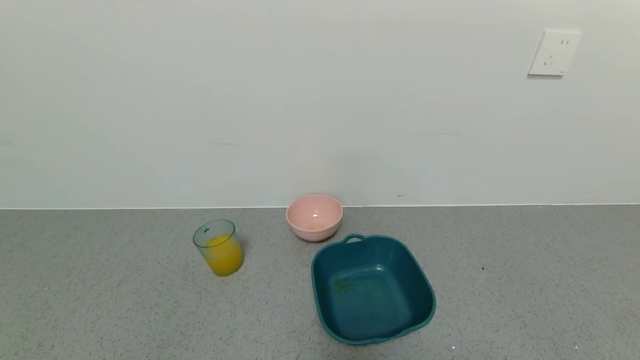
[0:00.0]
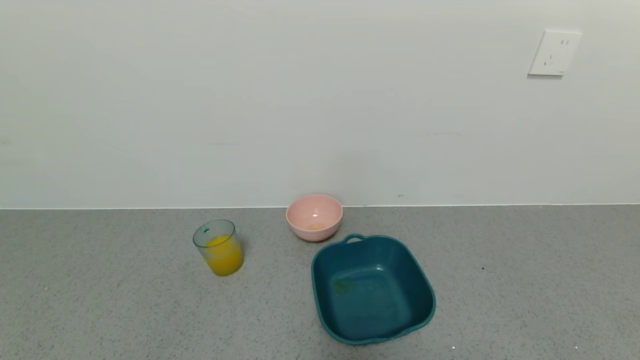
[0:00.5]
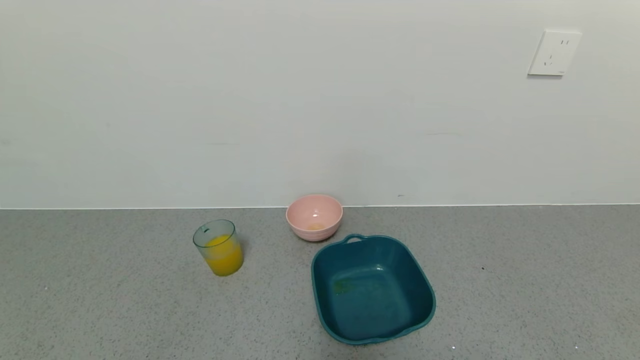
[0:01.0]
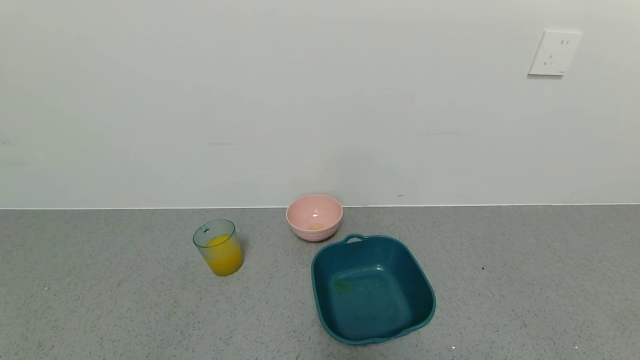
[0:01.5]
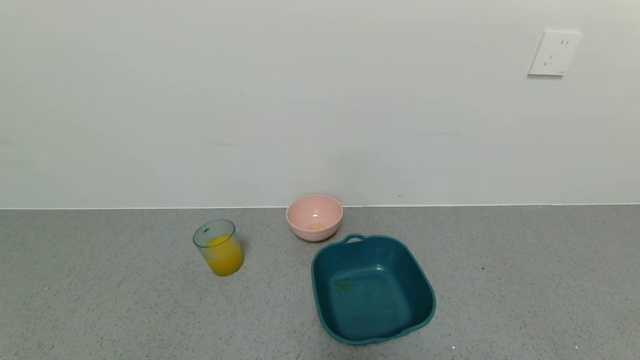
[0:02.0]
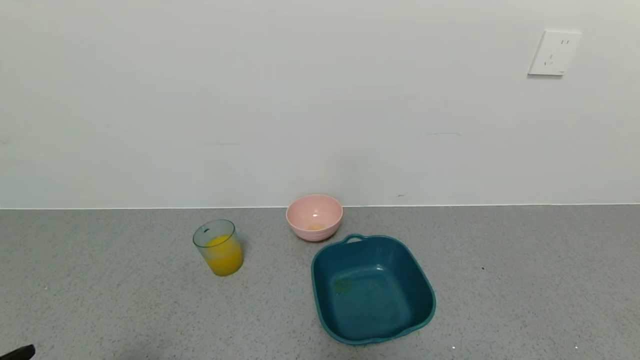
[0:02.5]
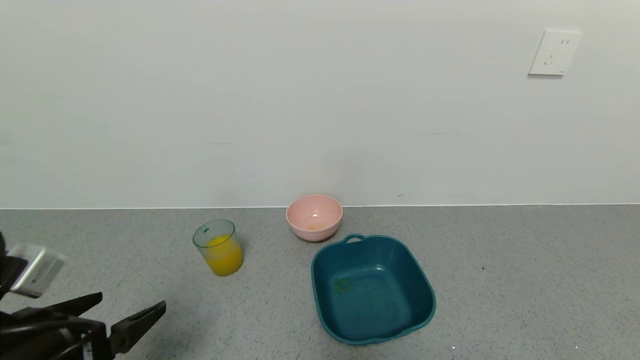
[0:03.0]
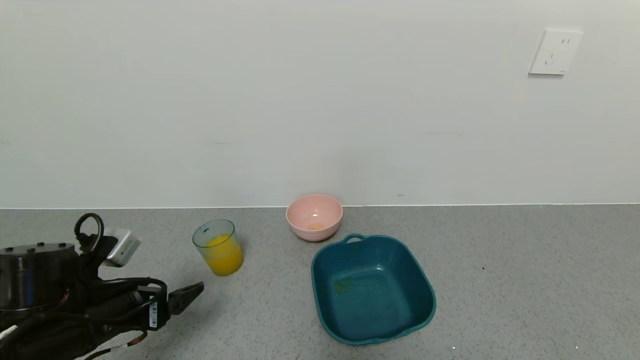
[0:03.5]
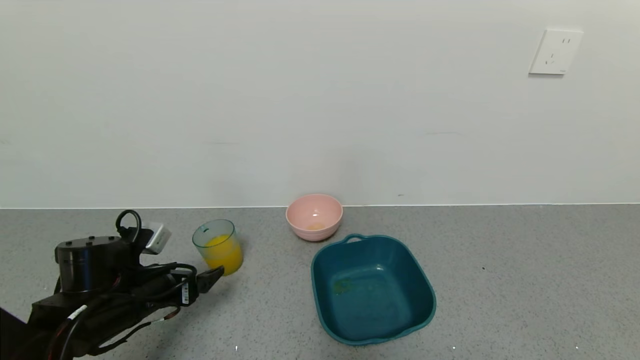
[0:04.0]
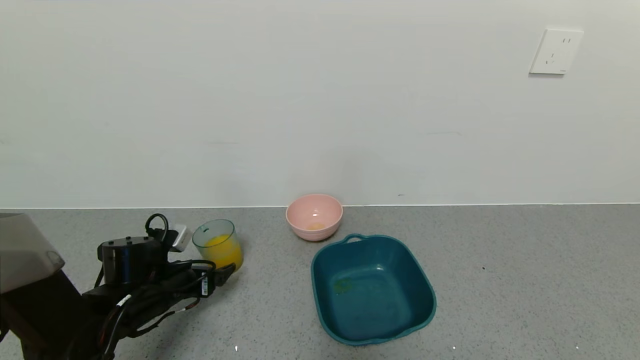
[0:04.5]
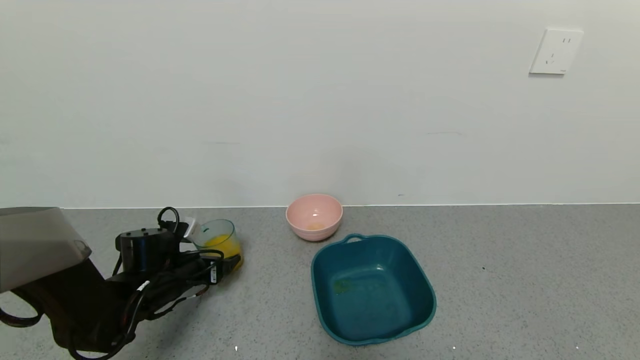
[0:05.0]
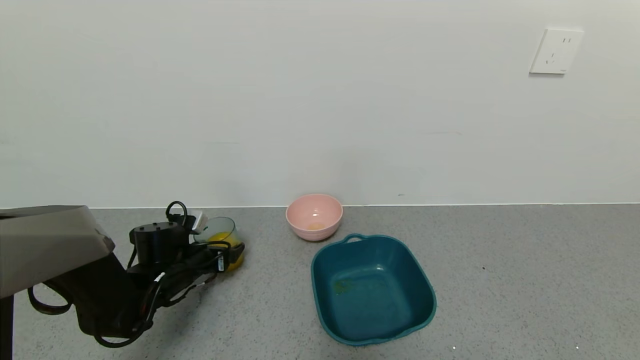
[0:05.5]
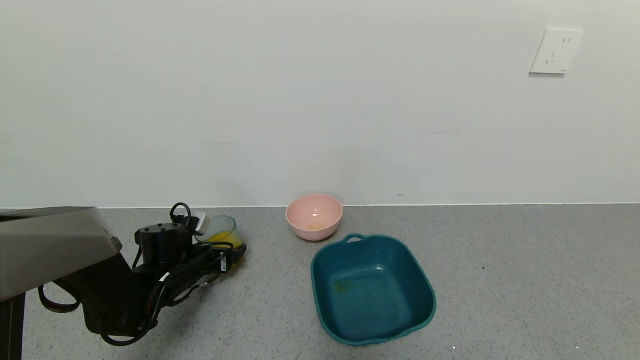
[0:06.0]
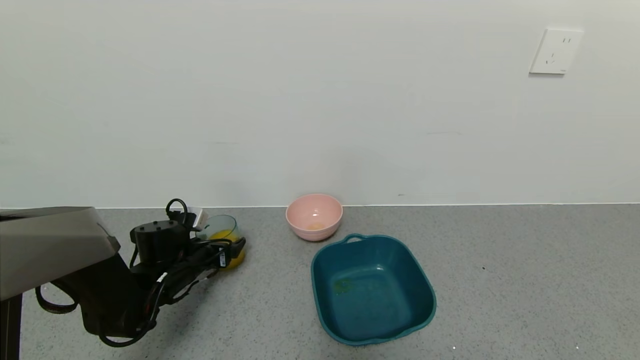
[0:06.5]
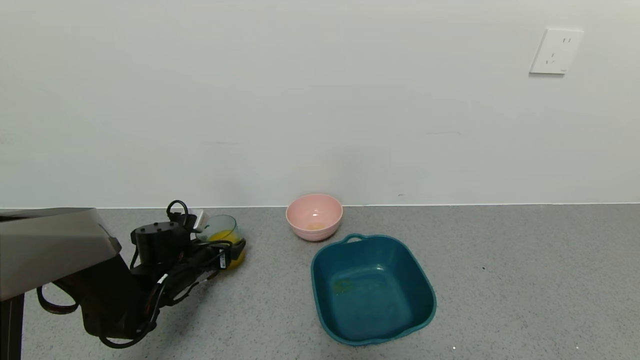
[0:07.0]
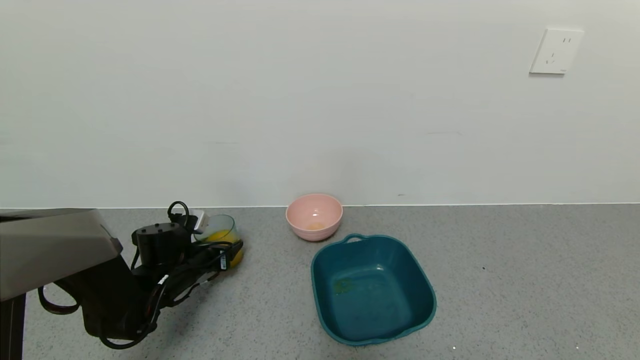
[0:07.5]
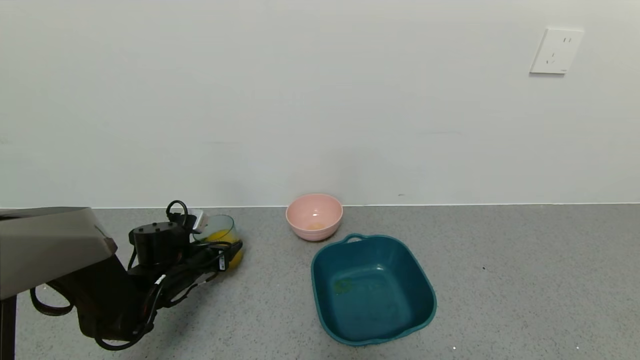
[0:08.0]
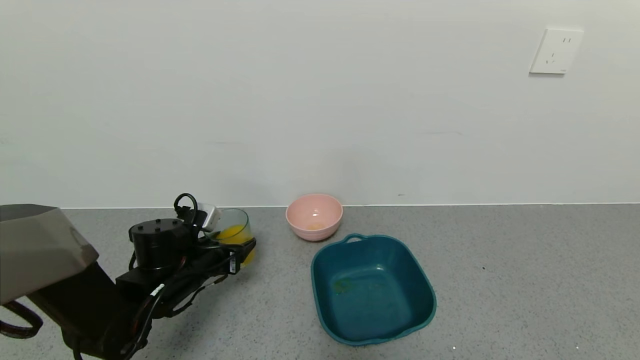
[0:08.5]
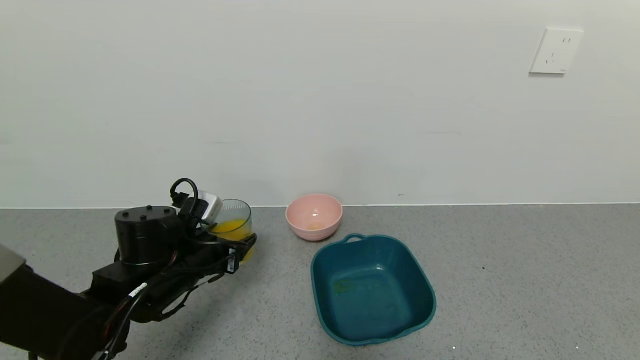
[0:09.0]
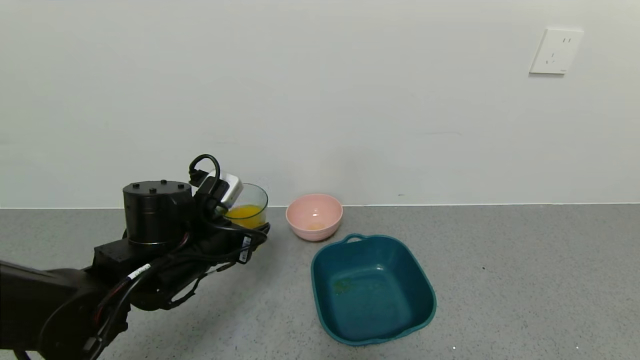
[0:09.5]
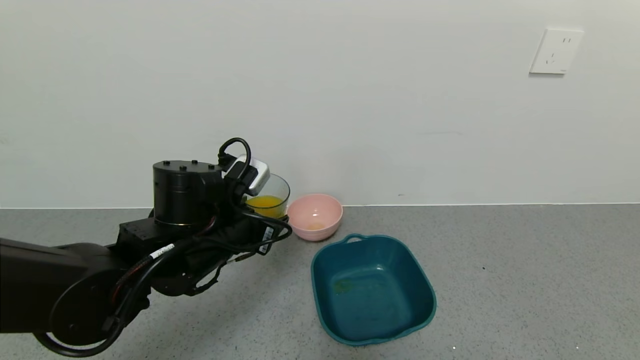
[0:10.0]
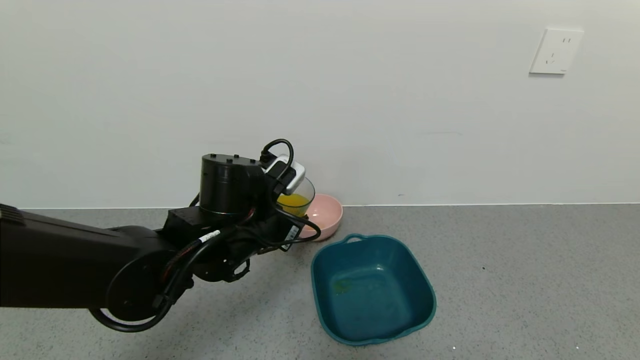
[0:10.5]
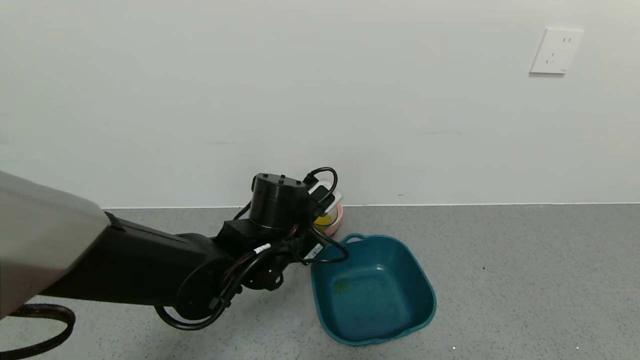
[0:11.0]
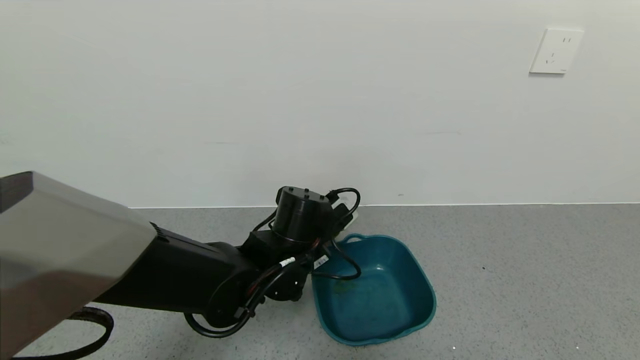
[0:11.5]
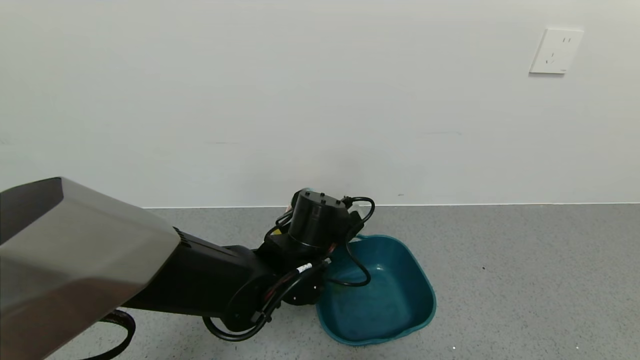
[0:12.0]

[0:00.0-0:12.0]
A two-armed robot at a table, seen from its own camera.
Task of the whole recording: use a gripper to pick up the cup and pour the liquid into a bowl or tray.
Step, 0:00.0 to 0:07.5: Pick up blue cup filled with orange juice with left gripper.
0:02.0 to 0:04.0: The left gripper goes approximately 30 cm forward.
0:04.0 to 0:06.0: The left gripper shifts roughly 10 cm forward and downward.
0:06.0 to 0:08.0: The left gripper closes.
0:08.0 to 0:10.0: The left gripper heads upward, to the right and backward, covering roughly 20 cm.
0:10.0 to 0:12.0: The left gripper goes roughly 10 cm to the right and downward.

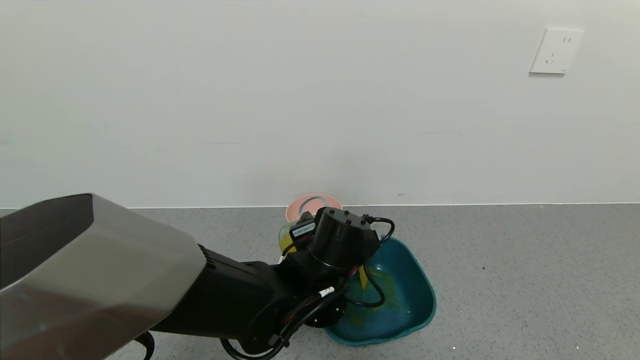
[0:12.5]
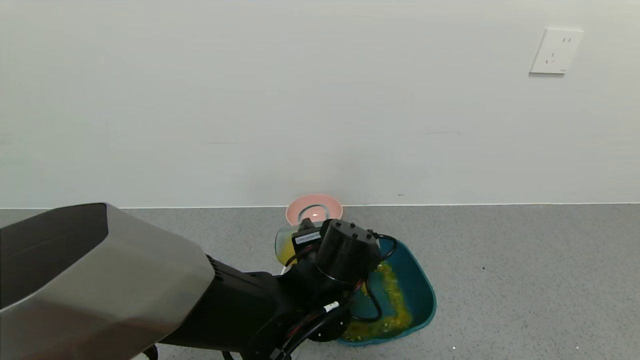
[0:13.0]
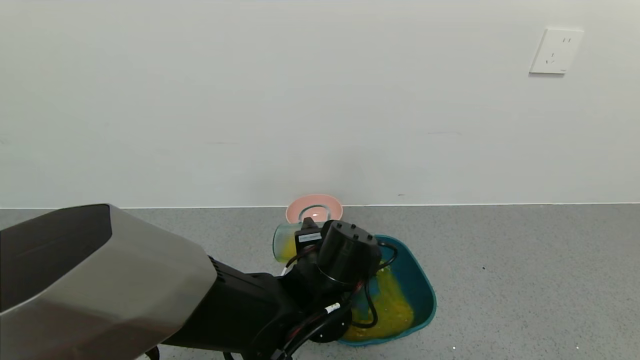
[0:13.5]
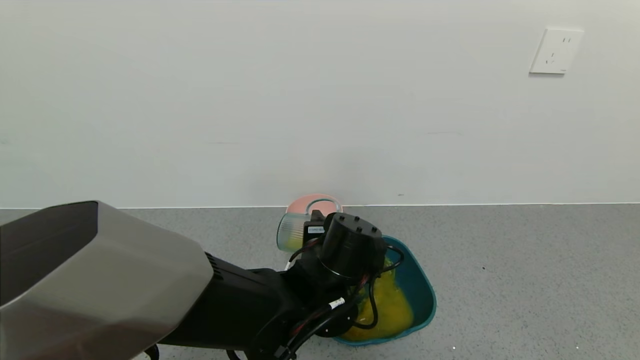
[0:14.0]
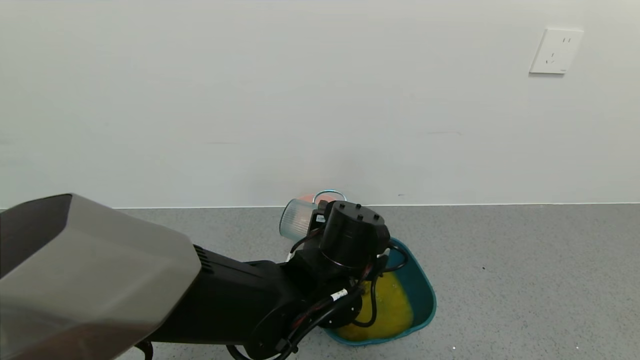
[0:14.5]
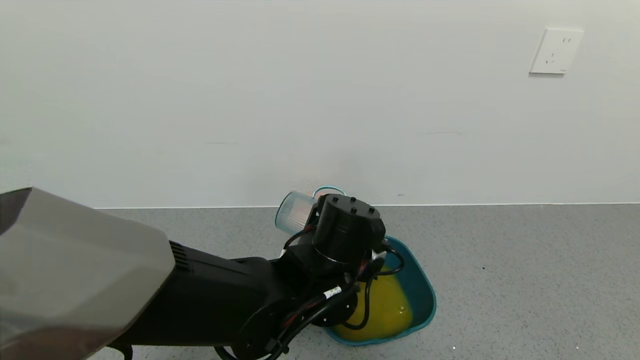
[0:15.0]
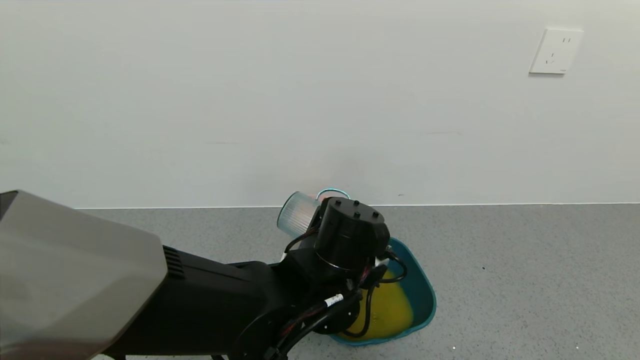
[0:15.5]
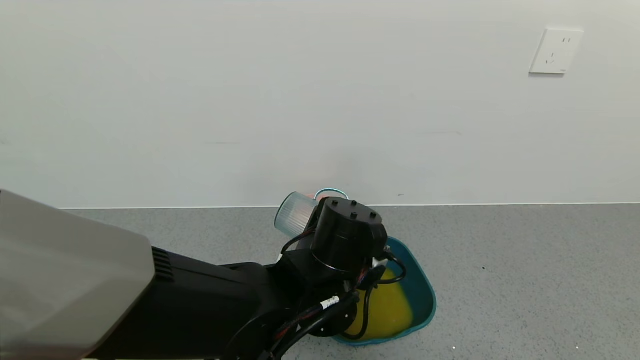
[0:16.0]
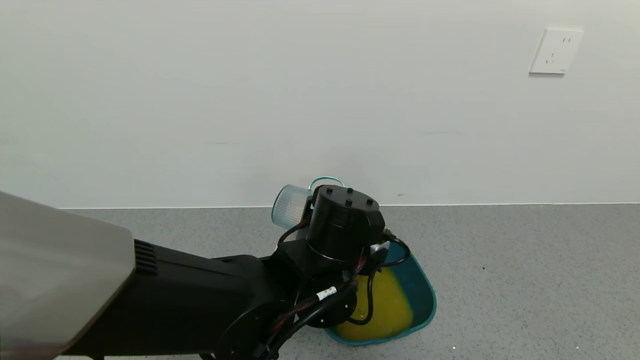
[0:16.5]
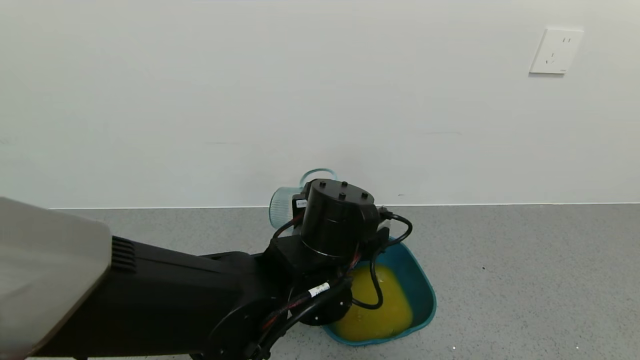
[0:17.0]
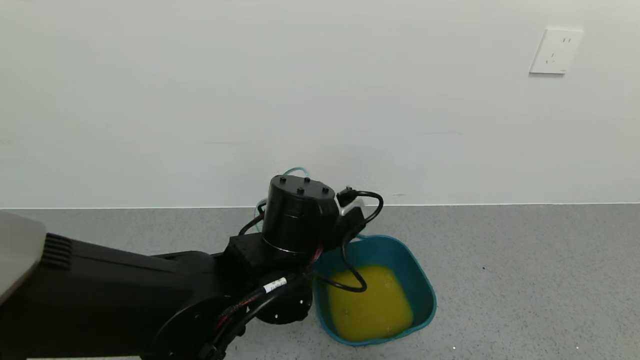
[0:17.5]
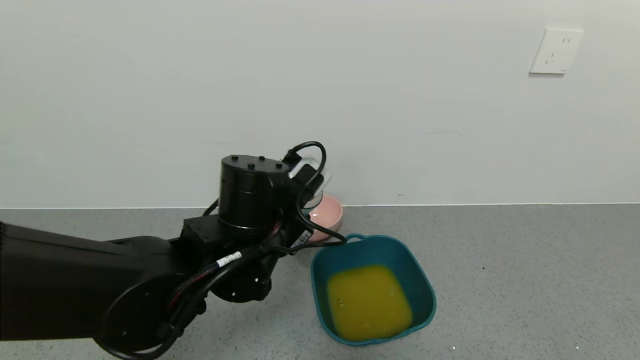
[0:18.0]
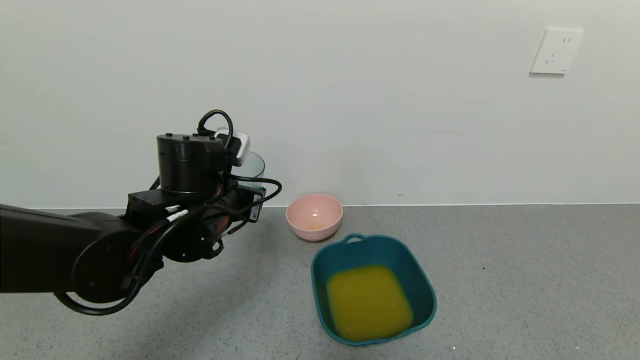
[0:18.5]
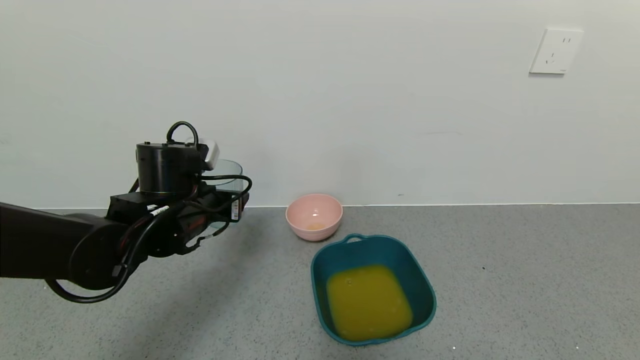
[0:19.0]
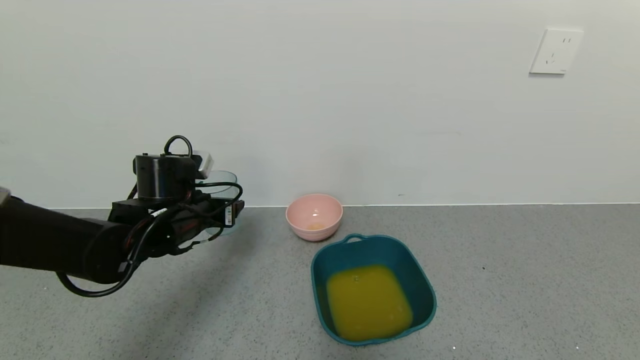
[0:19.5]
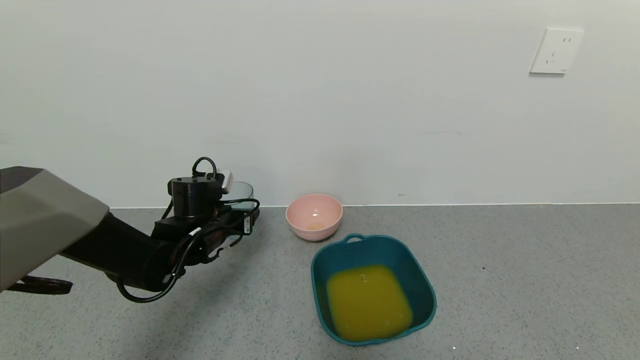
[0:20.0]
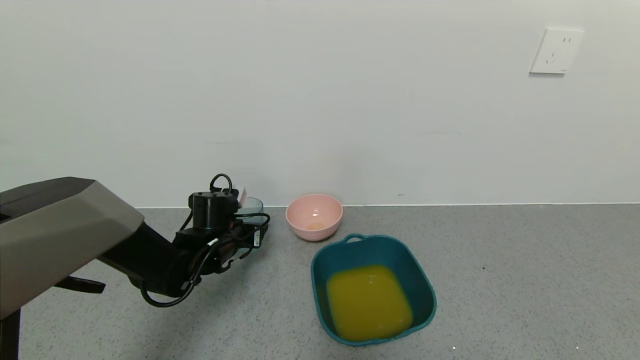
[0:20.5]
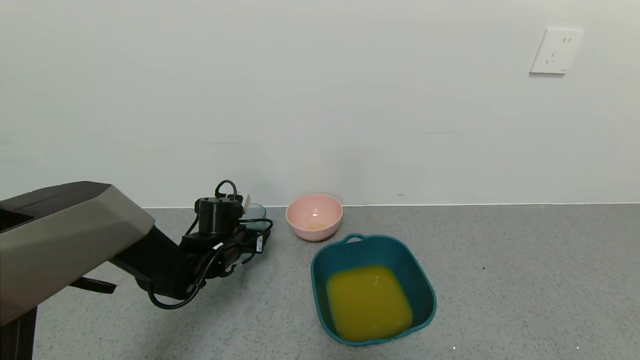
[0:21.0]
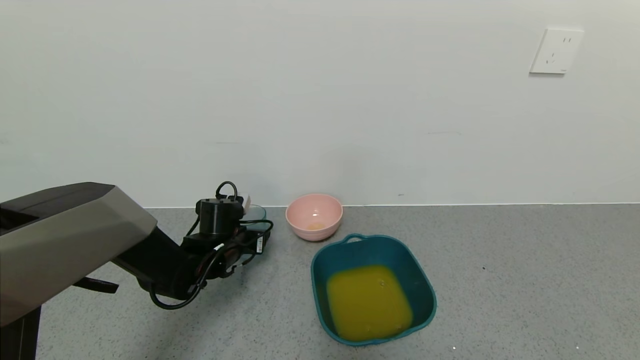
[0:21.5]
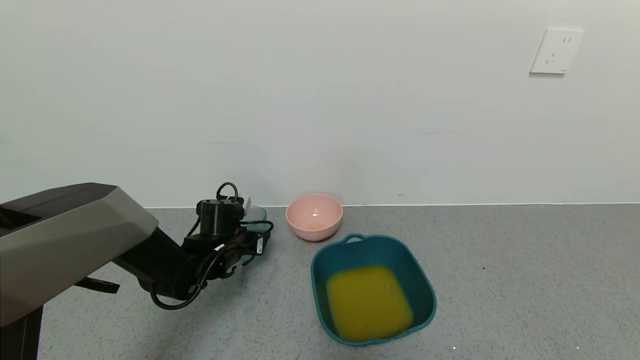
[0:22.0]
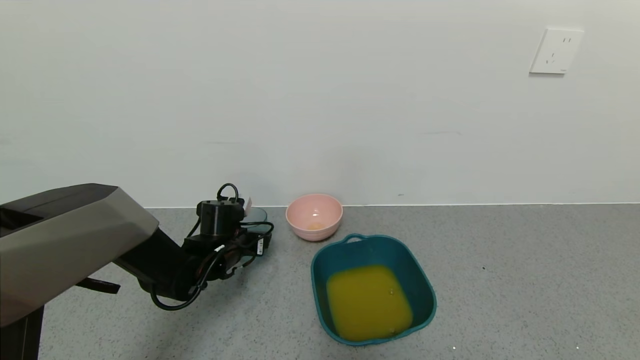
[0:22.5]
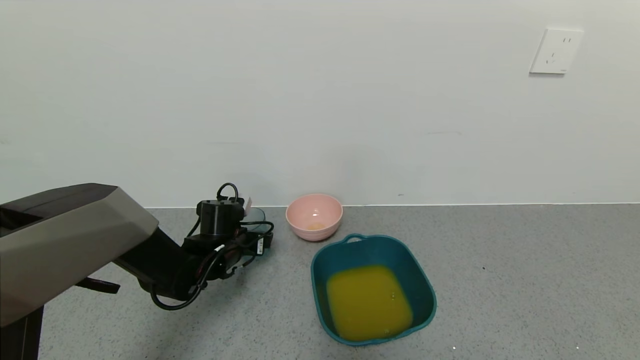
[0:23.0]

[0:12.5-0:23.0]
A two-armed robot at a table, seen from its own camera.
Task of the whole recording: use a gripper to pick up the cup and pour the liquid into a bowl or tray.
Step, 0:12.5 to 0:16.0: Pour the orange juice into the blue basin with left gripper.
Step, 0:16.5 to 0:22.5: Place blue cup with orange juice on the table with left gripper.
0:14.5 to 0:16.5: The grippers move only a little.
0:16.5 to 0:19.0: The left gripper shifts approximately 20 cm to the left.
0:19.0 to 0:21.0: The left gripper travels downward and forward by roughly 15 cm.
0:21.0 to 0:23.0: The left gripper opens.
